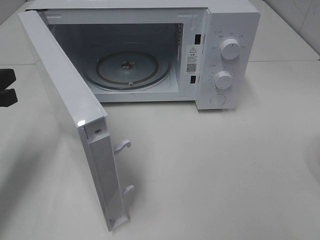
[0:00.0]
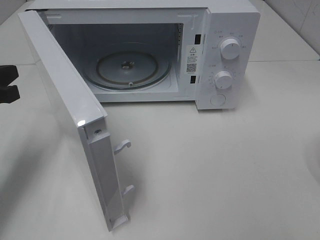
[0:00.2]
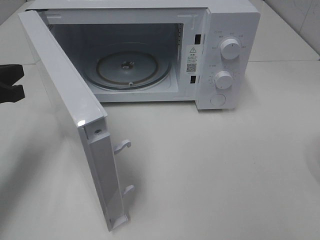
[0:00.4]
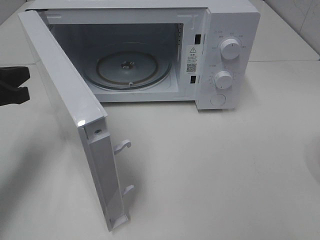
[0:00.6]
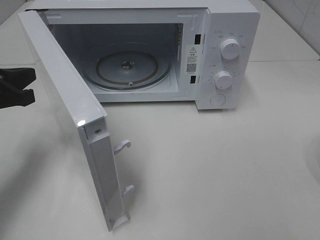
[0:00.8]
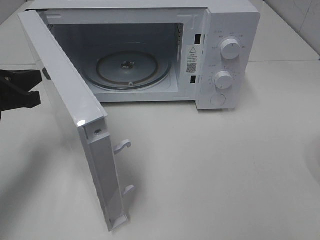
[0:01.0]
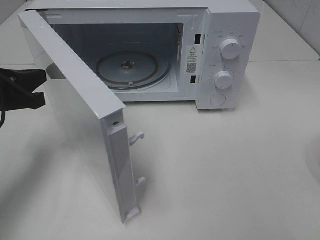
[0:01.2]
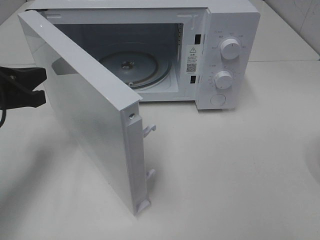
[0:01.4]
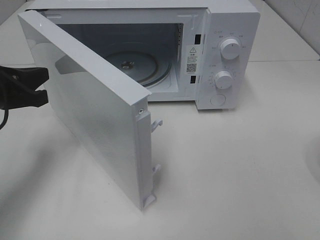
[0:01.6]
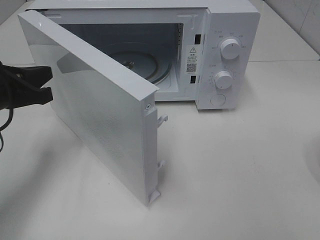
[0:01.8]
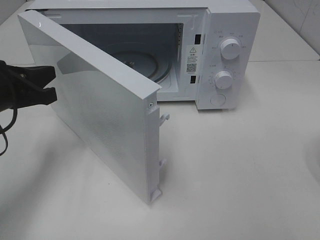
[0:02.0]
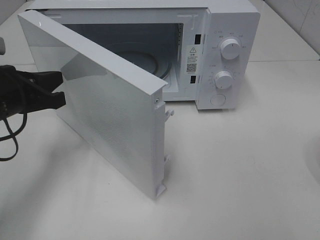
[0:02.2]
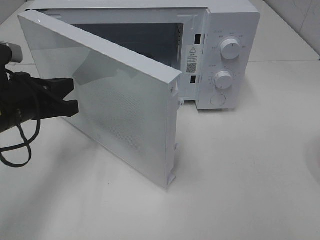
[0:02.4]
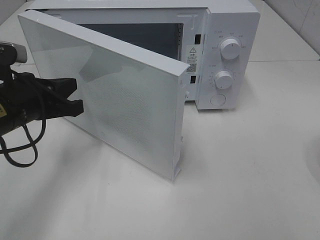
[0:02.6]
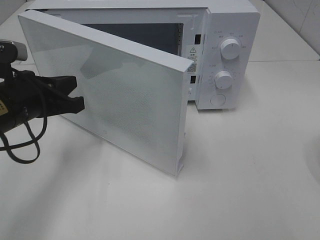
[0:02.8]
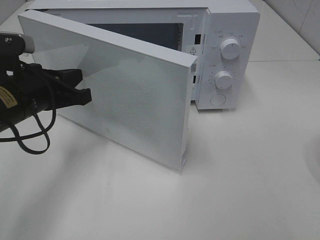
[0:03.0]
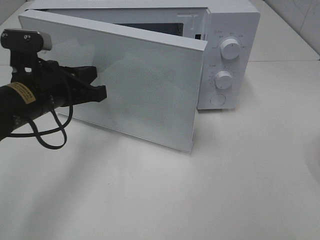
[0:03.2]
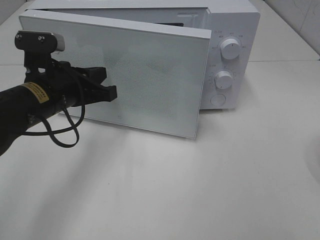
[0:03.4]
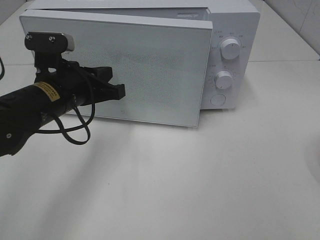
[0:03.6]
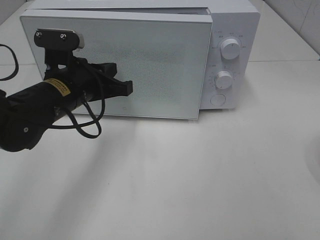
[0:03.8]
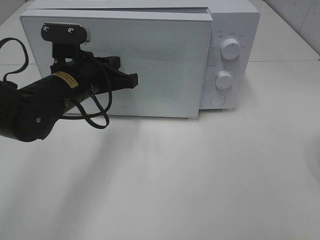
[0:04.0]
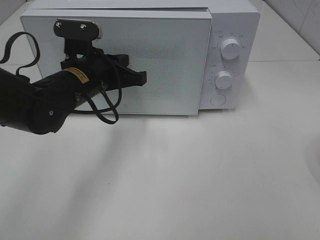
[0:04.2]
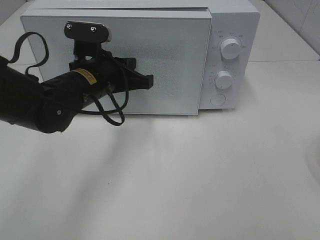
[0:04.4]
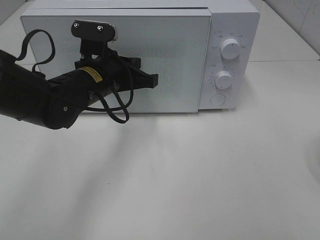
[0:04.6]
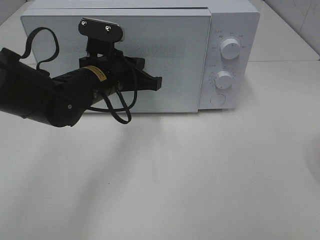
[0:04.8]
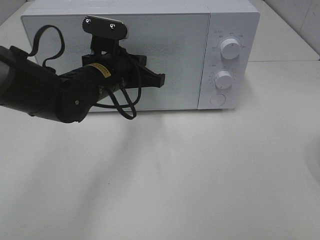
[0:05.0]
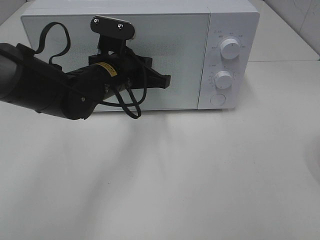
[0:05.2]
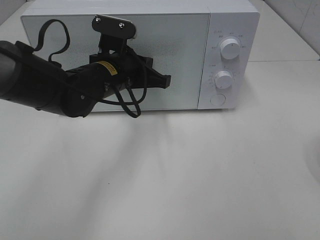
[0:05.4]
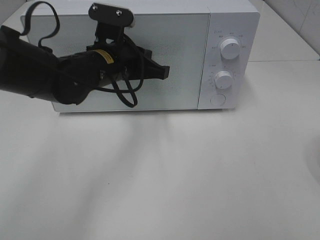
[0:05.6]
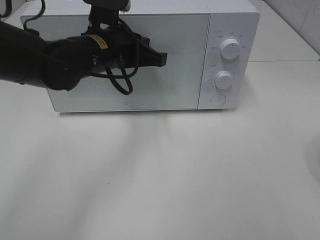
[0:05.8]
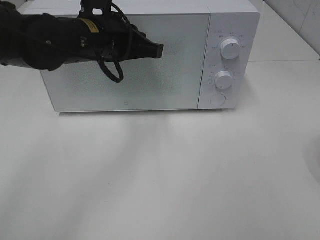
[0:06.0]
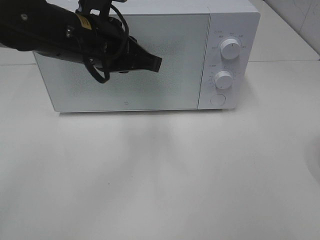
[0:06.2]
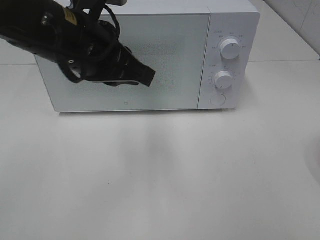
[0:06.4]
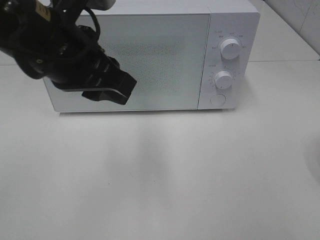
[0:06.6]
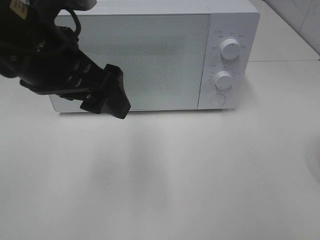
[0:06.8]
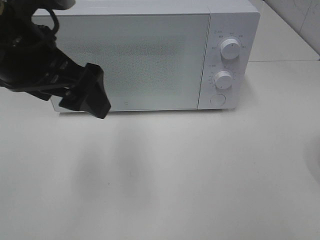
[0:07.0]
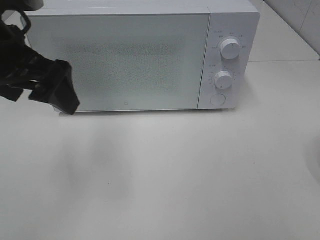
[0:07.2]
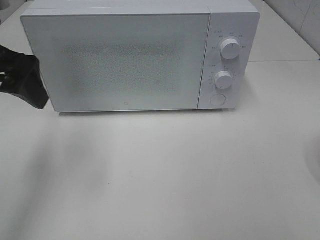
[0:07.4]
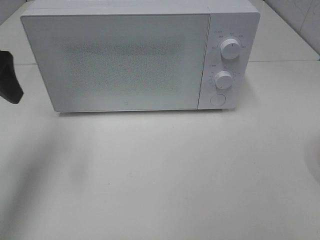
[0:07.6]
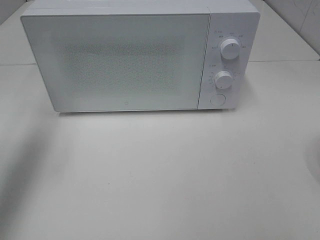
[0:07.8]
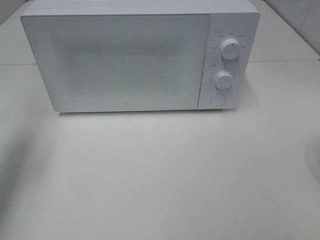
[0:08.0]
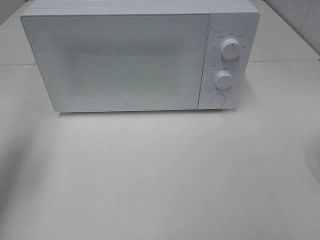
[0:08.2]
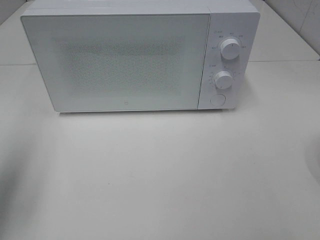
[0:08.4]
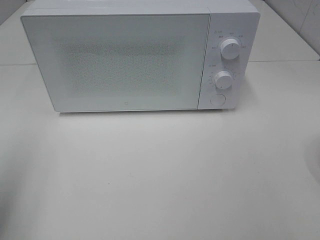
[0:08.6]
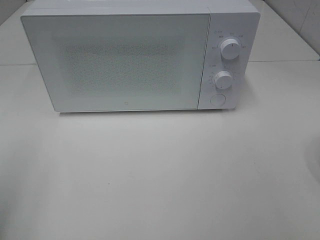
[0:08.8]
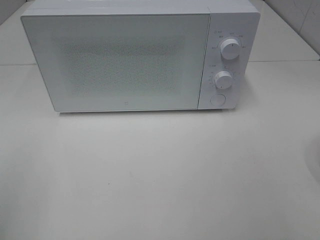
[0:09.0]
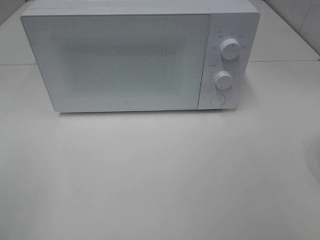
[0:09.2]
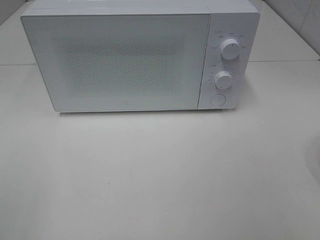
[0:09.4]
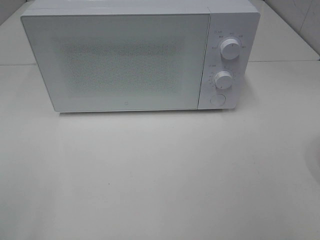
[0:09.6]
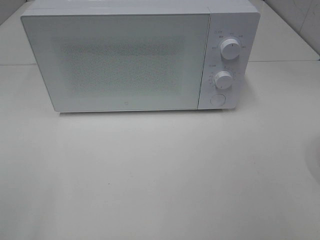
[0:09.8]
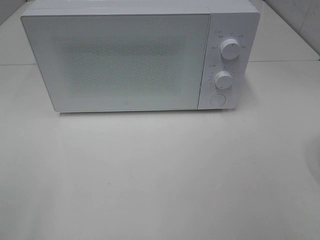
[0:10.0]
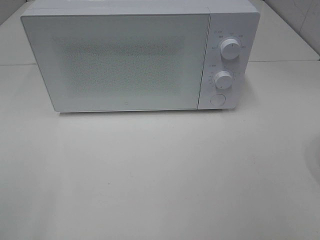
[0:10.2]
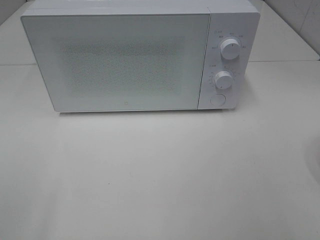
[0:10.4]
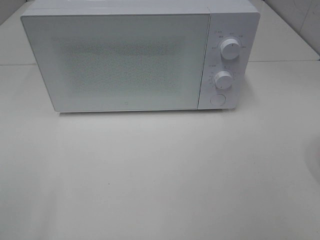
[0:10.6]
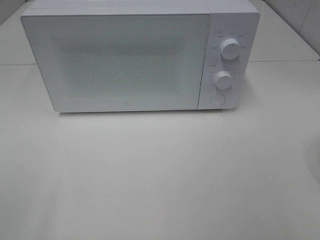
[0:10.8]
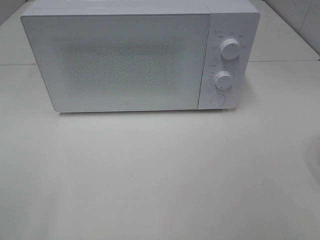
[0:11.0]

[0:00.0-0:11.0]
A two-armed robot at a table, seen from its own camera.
Task of the whole recording: Heat the burger.
Step, 0:00.0 to 0:05.0: Left hand: close the microwave door.
0:00.0 to 0:01.6: The grippers stay close to where they were, moving slightly.
0:01.6 to 0:03.2: The left gripper goes roughly 10 cm to the right.
0:03.2 to 0:04.8: The left gripper goes approximately 10 cm to the right and forward.
0:04.8 to 0:06.2: The left gripper is displaced upward by about 10 cm.
0:06.2 to 0:07.8: The left gripper goes roughly 20 cm to the left, and opens.
0:07.8 to 0:09.4: The left gripper moves backward, some 30 cm.

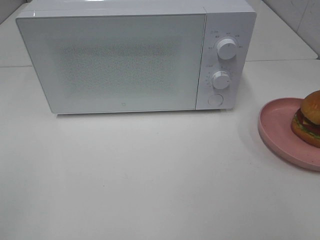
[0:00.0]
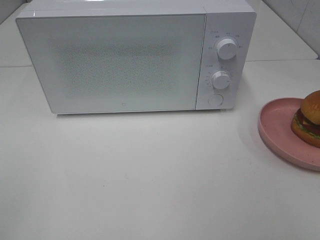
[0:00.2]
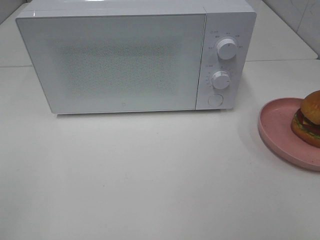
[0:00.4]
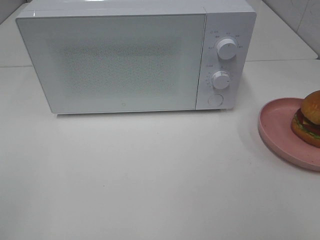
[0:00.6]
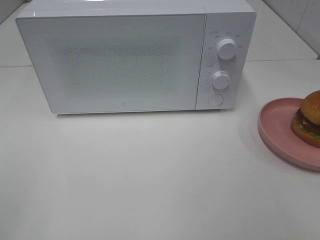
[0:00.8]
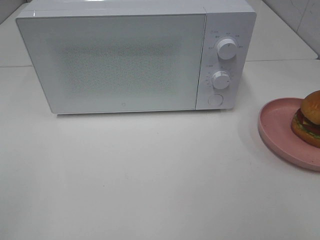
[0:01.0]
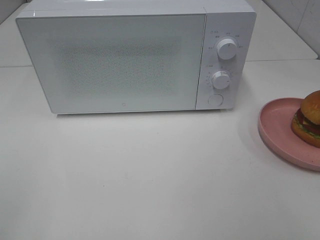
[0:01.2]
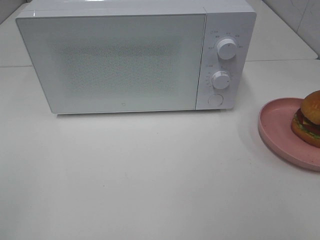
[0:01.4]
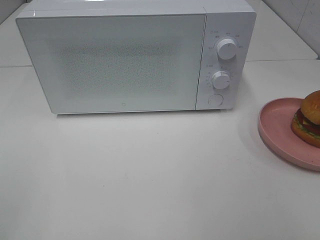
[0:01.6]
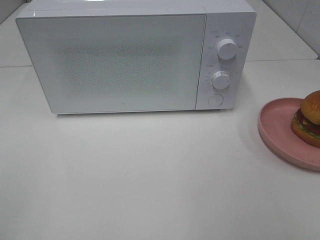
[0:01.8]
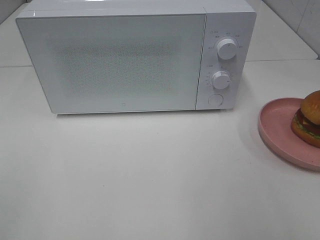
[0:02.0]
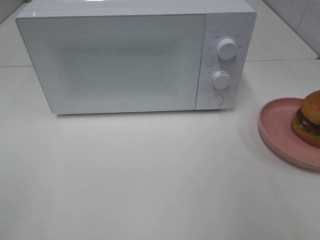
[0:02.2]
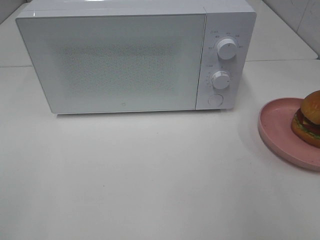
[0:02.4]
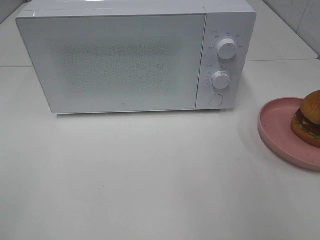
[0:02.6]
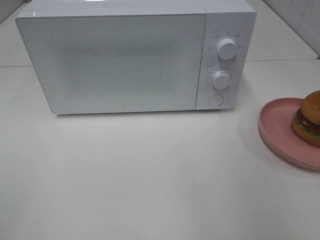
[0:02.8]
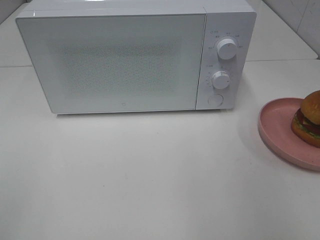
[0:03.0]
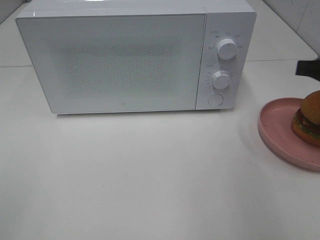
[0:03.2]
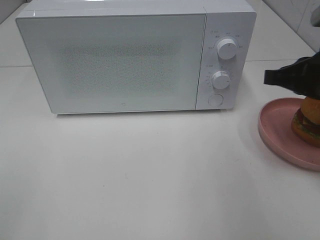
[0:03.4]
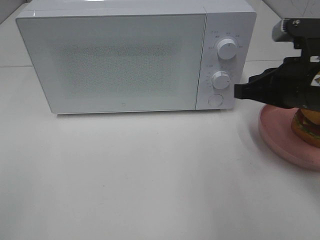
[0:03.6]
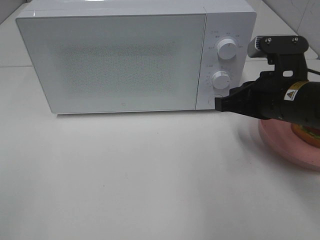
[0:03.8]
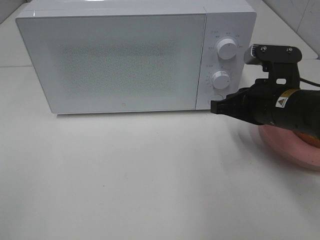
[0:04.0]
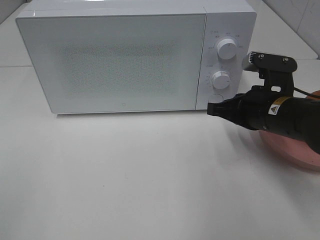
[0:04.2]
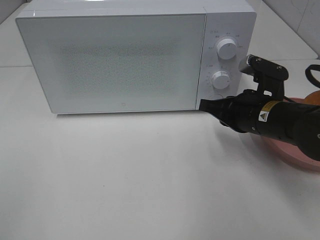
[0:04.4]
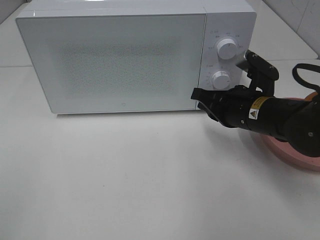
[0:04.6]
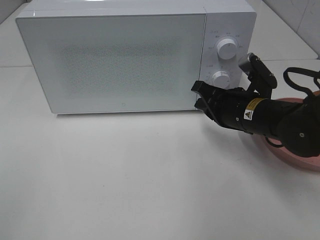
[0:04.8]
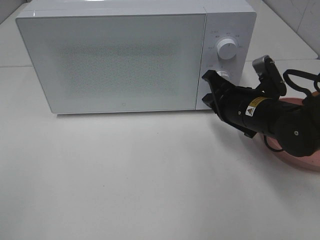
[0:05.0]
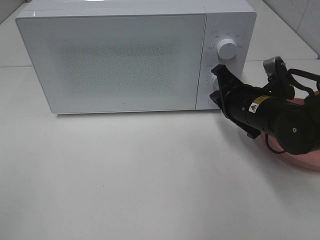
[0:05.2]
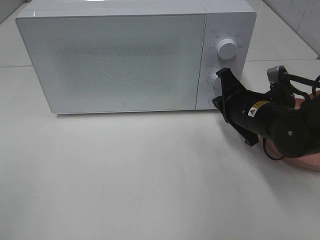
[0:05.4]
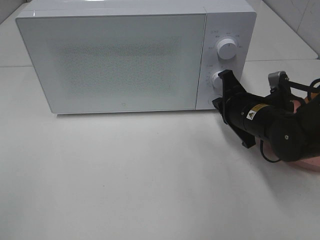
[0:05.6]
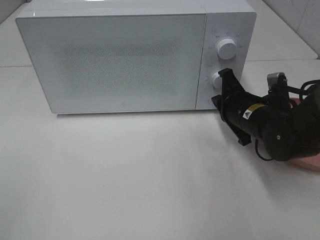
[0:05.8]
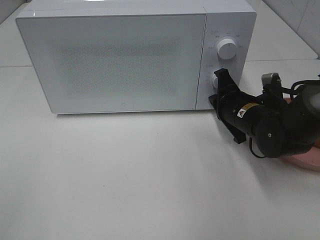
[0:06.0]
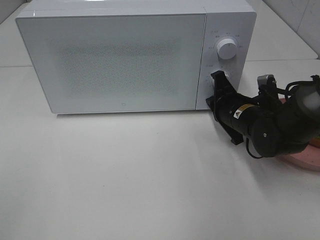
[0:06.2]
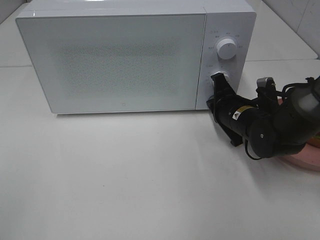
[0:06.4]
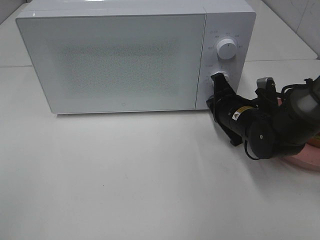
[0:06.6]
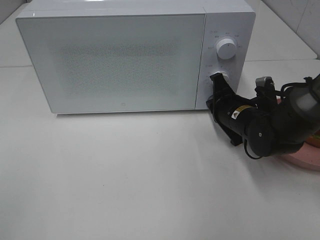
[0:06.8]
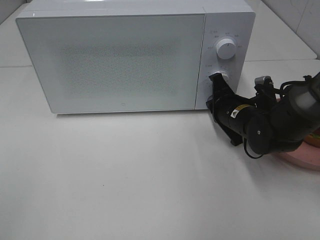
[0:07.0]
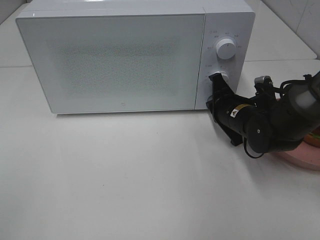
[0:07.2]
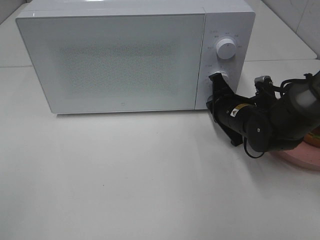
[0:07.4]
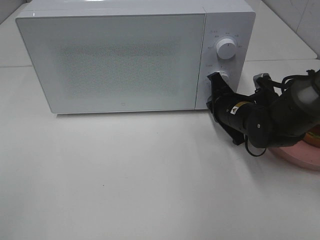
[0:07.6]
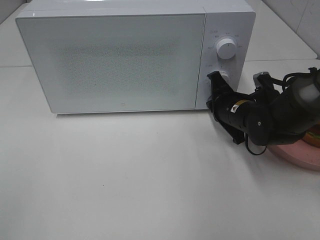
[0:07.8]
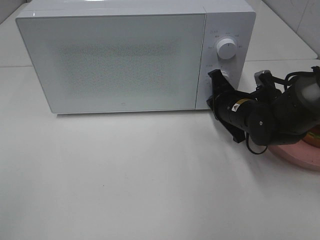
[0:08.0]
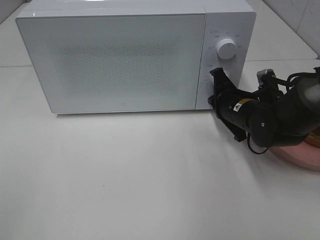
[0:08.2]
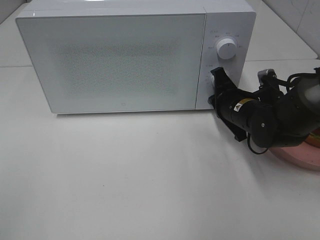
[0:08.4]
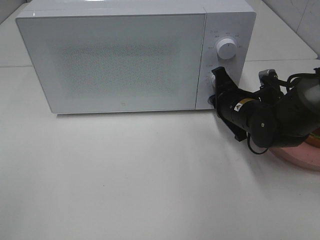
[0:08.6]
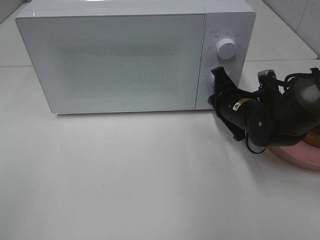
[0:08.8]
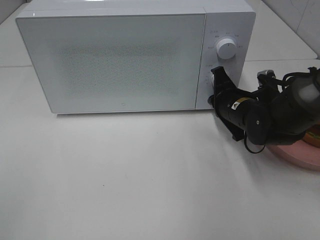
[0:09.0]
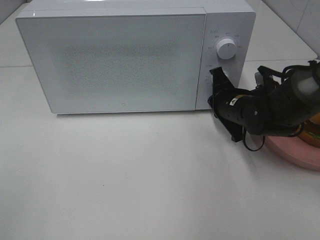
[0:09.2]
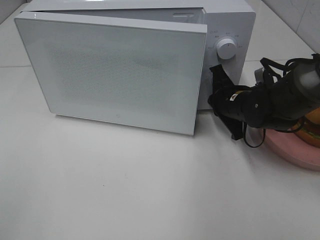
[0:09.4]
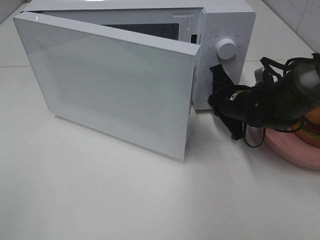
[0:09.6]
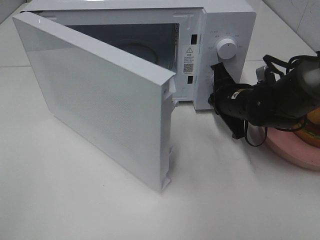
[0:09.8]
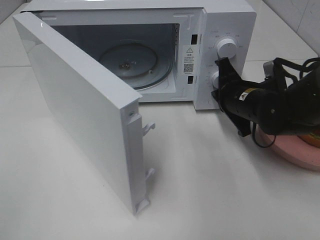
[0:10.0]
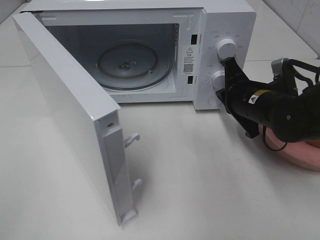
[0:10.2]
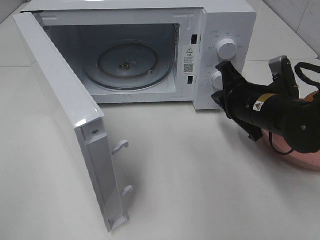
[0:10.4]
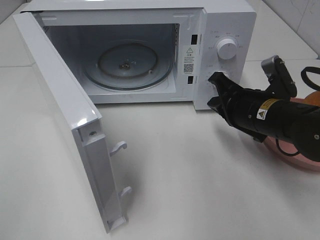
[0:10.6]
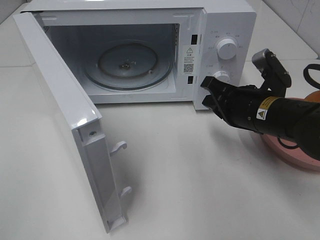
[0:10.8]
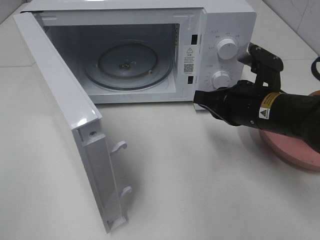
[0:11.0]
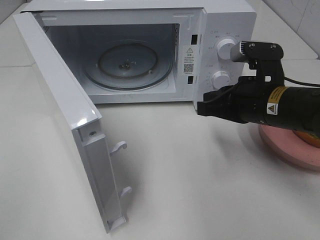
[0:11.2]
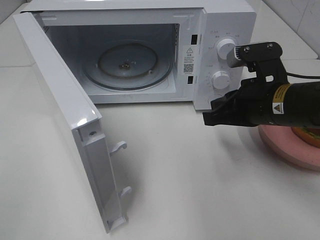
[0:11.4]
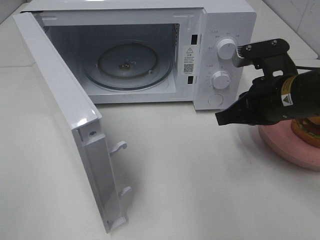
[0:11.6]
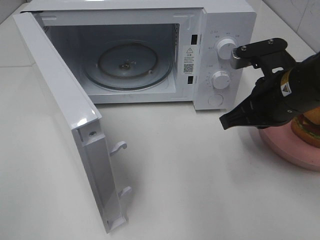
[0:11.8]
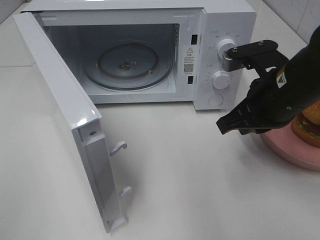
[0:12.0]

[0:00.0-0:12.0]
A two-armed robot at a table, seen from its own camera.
Task of the whole recording: Heat the burger.
Step, 0:00.0 to 0:10.2: Right hand: press the switch.
0:00.0 to 0:01.6: The two grippers keep their place.
0:03.0 to 0:04.4: The right gripper moves to the left, downward and forward, roughly 20 cm.
0:04.4 to 0:06.0: The right gripper is displaced forward by about 5 cm.
0:06.0 to 0:07.6: The grippers make only small movements.
0:07.6 to 0:09.0: Both grippers stay about where they are.
0:09.0 to 0:10.4: The right gripper moves backward, roughly 5 cm.
0:10.4 to 0:12.0: The right gripper shifts about 10 cm upward.
